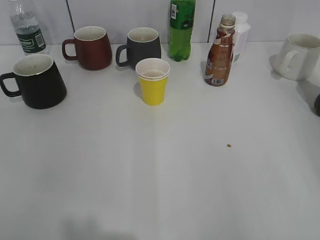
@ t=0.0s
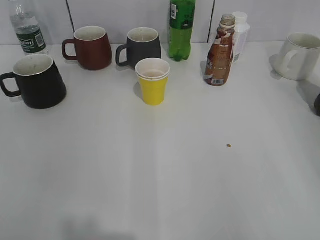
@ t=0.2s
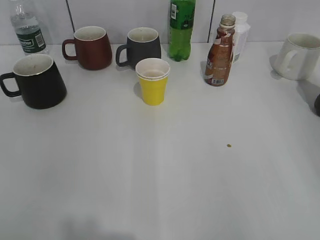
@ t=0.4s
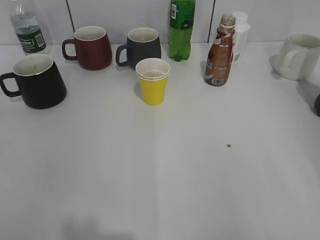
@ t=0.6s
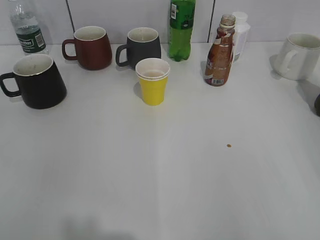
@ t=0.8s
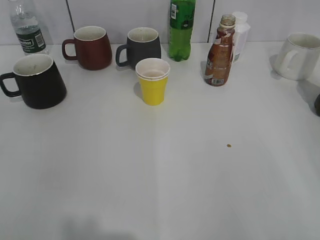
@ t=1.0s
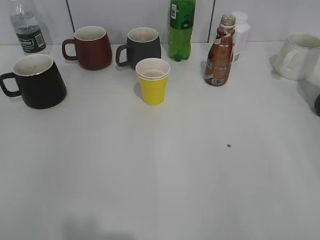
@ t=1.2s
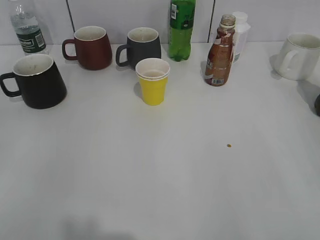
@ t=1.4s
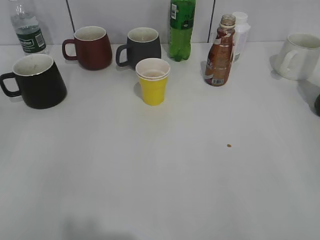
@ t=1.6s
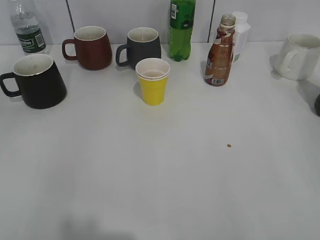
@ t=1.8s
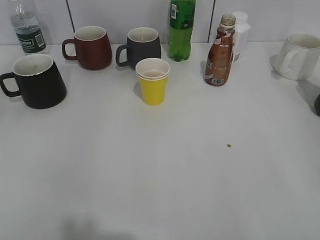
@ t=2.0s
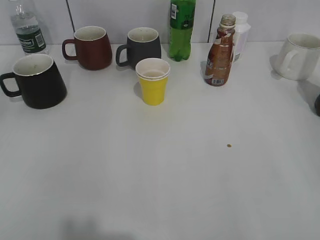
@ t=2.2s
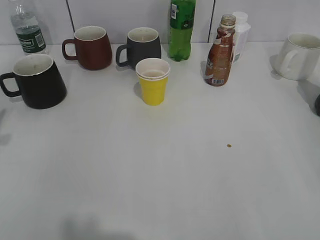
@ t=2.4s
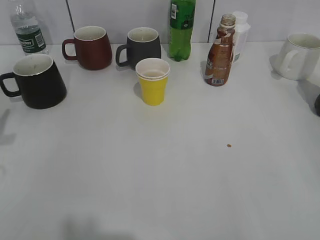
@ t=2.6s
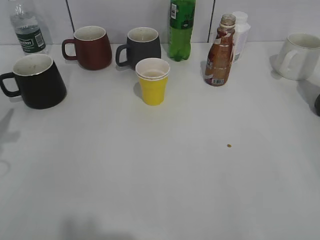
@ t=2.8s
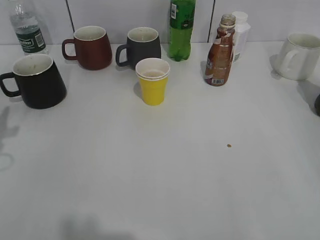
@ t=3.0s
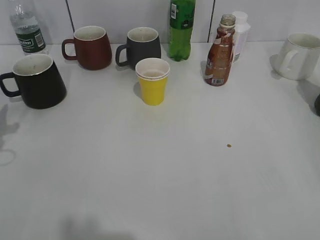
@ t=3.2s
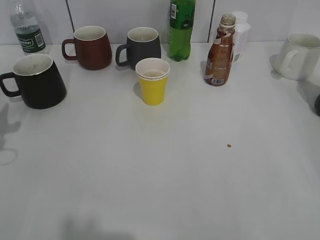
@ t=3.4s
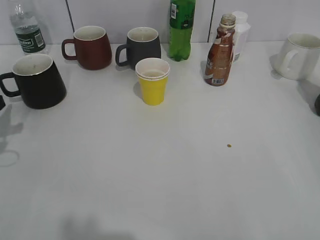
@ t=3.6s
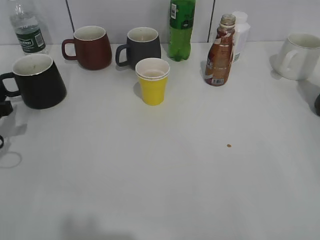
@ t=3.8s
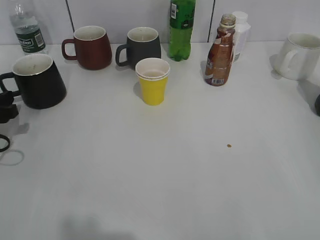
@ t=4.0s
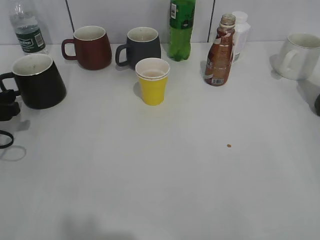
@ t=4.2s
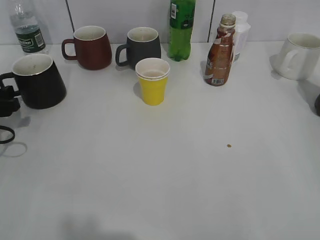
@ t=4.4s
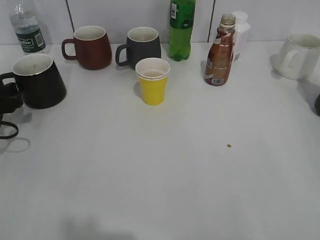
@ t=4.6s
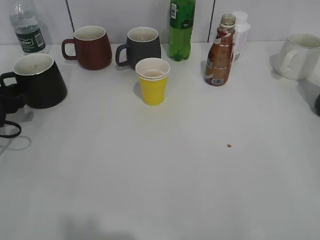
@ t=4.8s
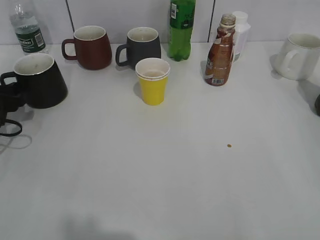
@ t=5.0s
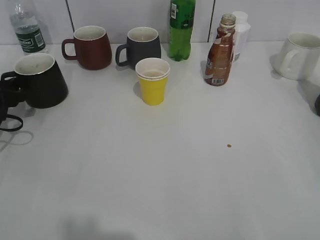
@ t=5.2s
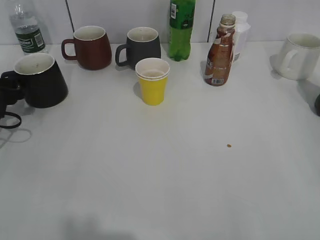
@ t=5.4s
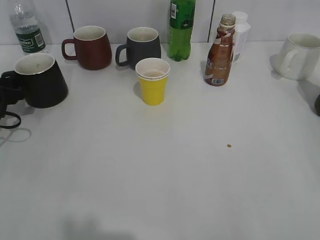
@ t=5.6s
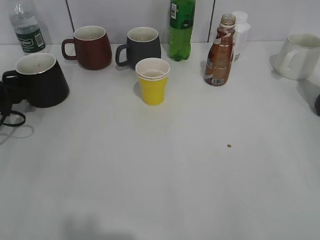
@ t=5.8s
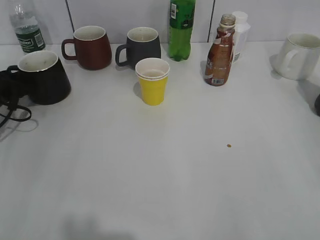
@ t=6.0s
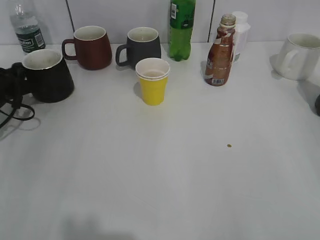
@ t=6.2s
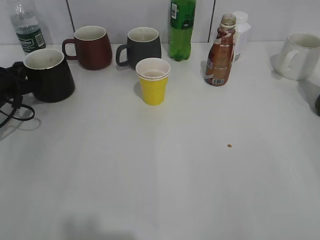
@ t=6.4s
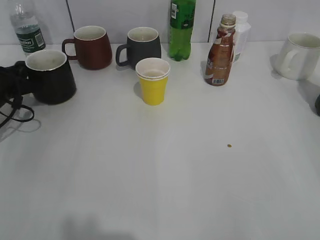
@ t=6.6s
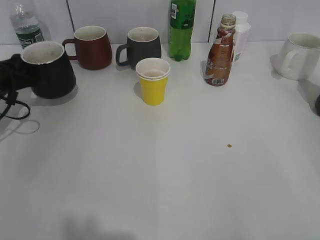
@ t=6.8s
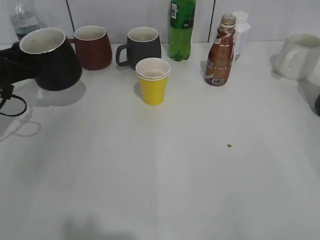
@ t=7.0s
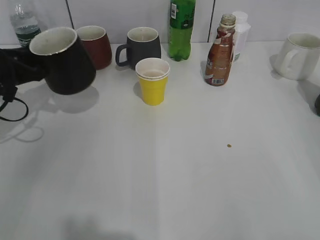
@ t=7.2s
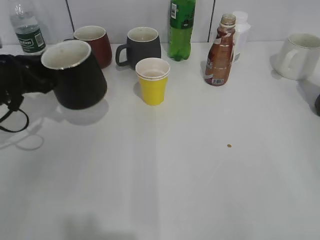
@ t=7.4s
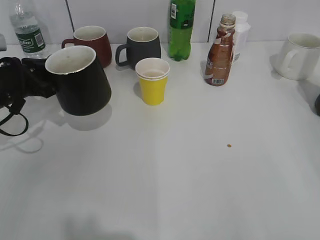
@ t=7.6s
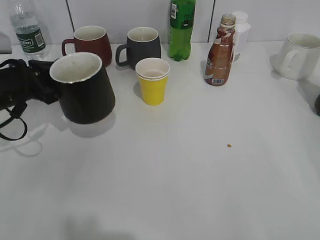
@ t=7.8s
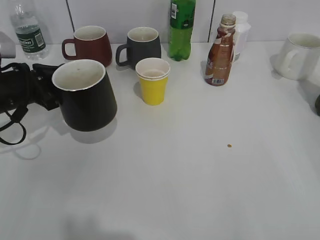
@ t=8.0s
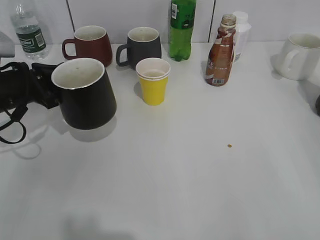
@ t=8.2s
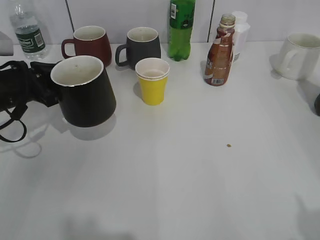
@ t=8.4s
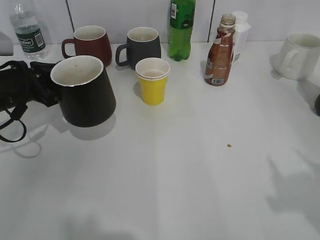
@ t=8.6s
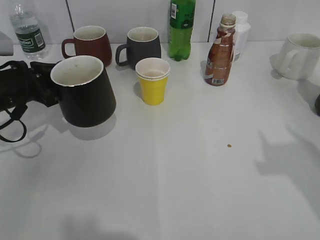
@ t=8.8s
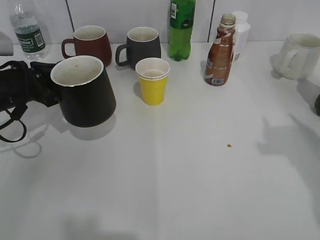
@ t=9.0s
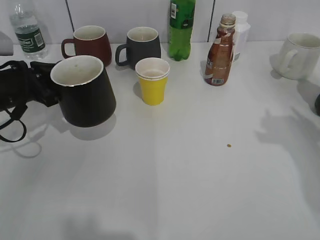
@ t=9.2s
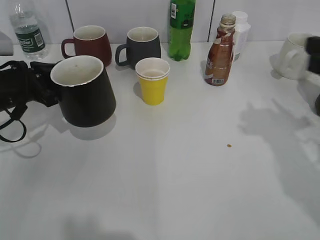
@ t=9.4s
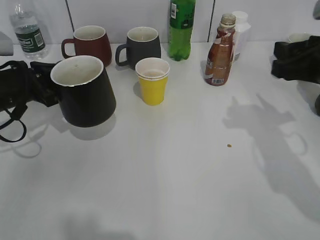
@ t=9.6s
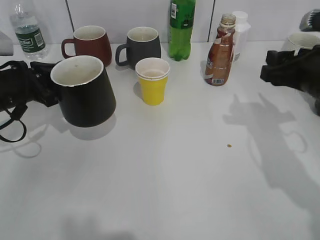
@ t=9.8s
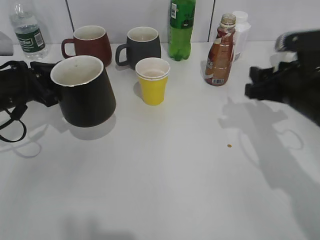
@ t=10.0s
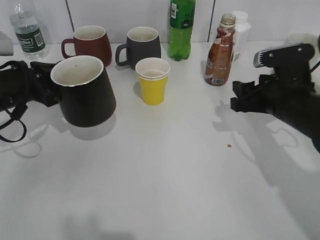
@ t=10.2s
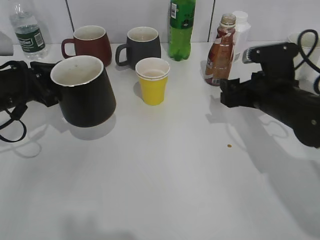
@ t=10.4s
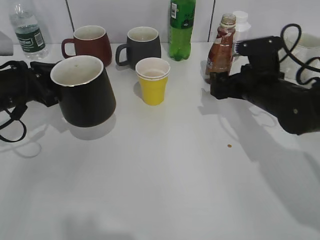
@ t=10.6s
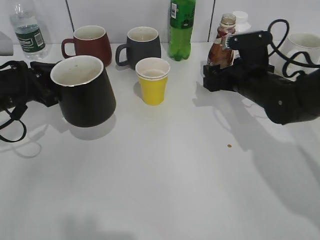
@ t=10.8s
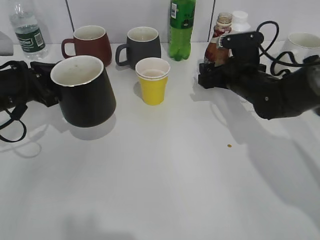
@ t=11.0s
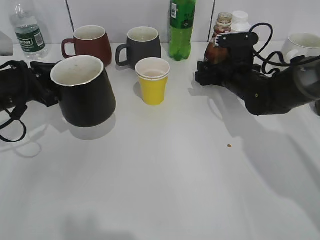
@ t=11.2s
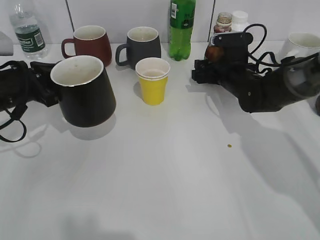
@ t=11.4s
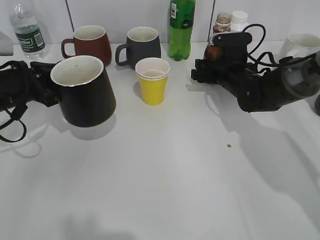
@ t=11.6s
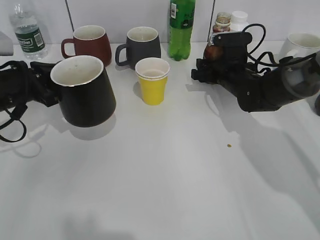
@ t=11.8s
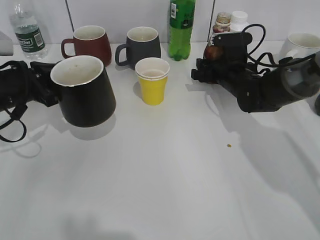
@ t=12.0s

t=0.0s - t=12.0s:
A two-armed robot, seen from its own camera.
Step, t=1.2s - t=6.6s: Grasp the black cup with left gripper.
Step, t=6.8s - t=8.2s: Lift the black cup with left gripper.
Step, t=8.4s - t=11.8s: Grasp the bottle with coffee with right gripper.
t=3.0s - t=4.4s: The left gripper shifts approximately 10 cm downward and forward.
t=4.4s - t=6.0s: The left gripper goes approximately 5 cm forward.
t=6.0s - t=7.6s: The left gripper travels to the right by about 5 cm, and closes its fingers.
t=7.6s - t=9.0s: The right gripper moves forward, roughly 15 cm.
t=9.0s - t=10.4s: The right gripper is displaced downward, forward and to the left by about 25 cm, and opens up.
t=10.4s - t=12.0s: The right gripper moves forward, some 10 cm, and closes its fingers.

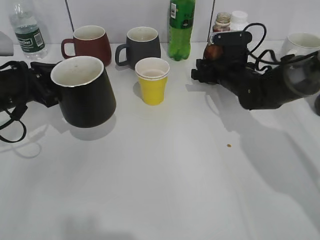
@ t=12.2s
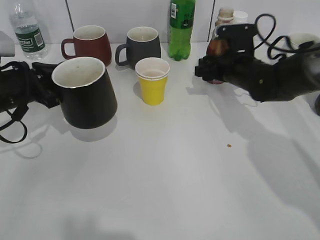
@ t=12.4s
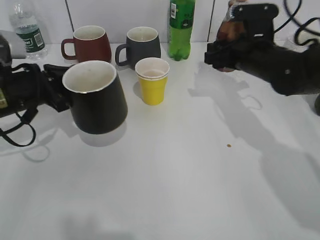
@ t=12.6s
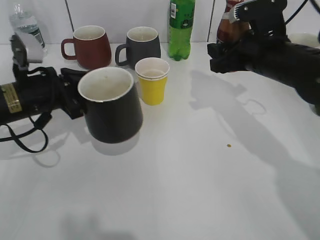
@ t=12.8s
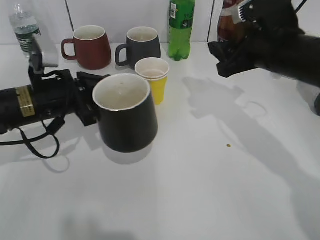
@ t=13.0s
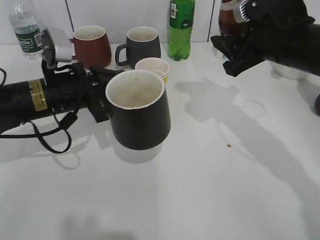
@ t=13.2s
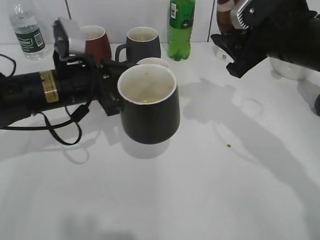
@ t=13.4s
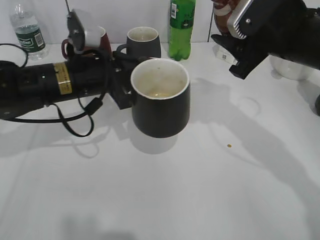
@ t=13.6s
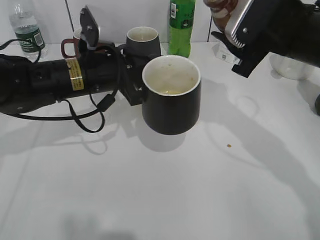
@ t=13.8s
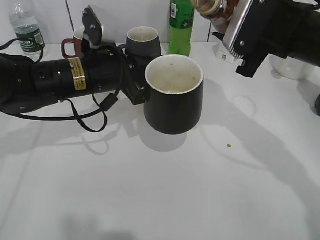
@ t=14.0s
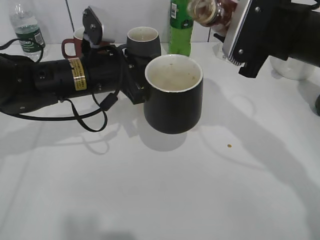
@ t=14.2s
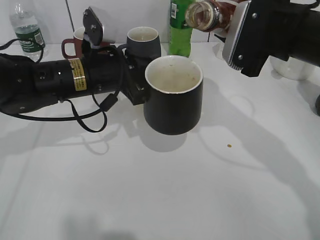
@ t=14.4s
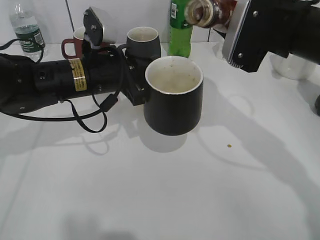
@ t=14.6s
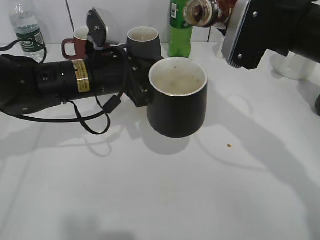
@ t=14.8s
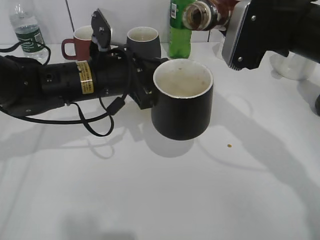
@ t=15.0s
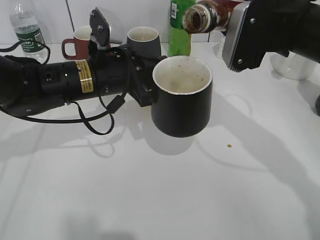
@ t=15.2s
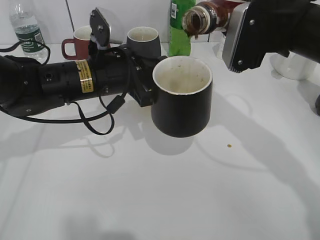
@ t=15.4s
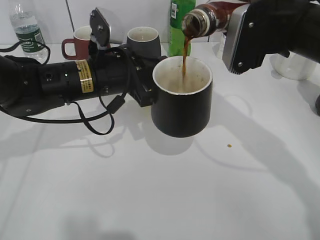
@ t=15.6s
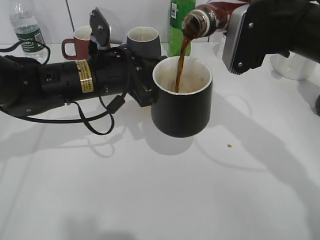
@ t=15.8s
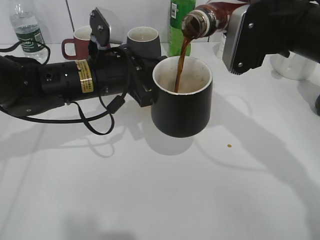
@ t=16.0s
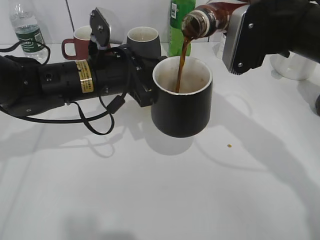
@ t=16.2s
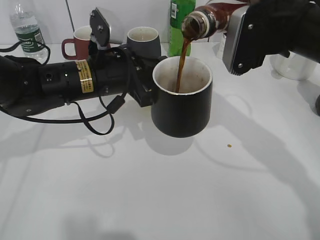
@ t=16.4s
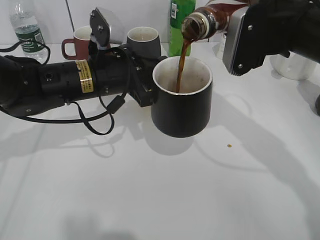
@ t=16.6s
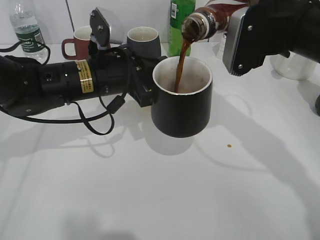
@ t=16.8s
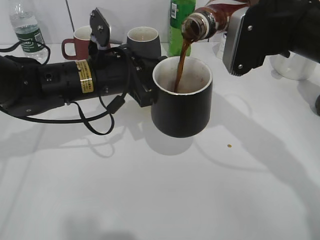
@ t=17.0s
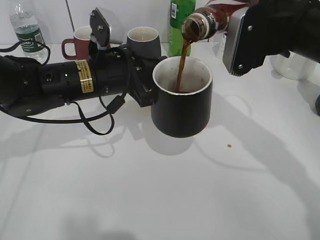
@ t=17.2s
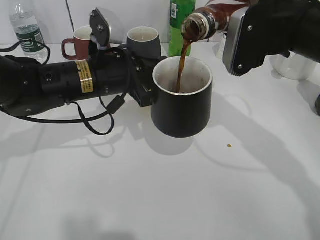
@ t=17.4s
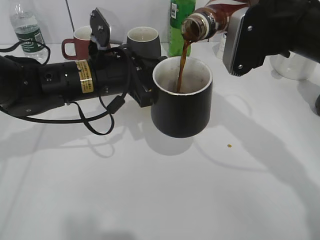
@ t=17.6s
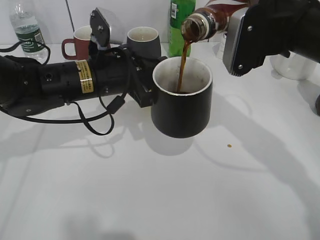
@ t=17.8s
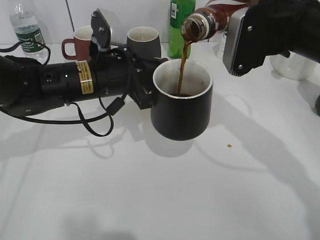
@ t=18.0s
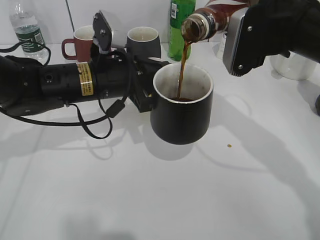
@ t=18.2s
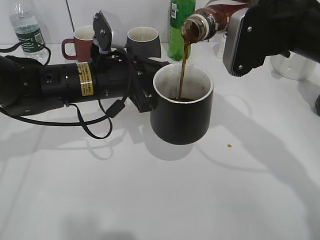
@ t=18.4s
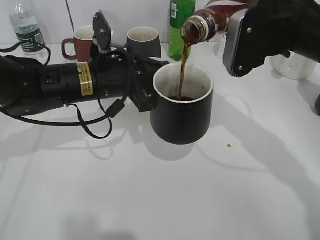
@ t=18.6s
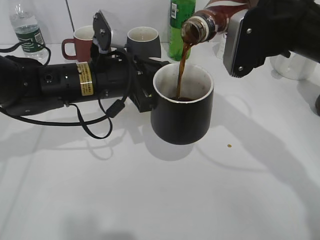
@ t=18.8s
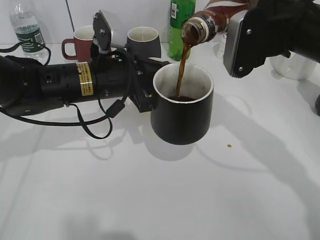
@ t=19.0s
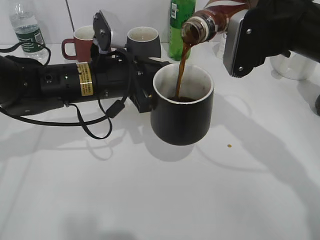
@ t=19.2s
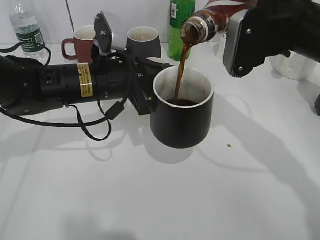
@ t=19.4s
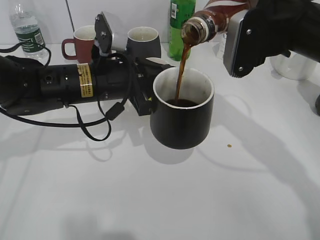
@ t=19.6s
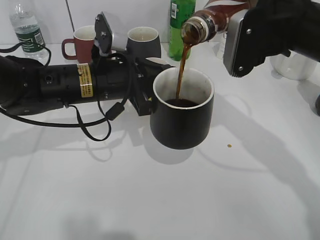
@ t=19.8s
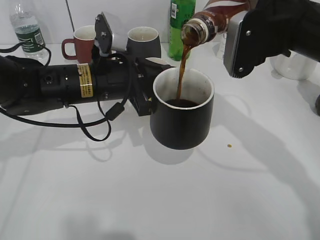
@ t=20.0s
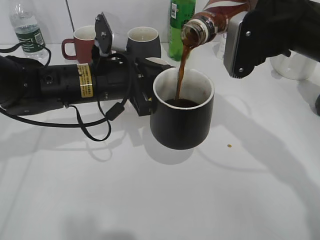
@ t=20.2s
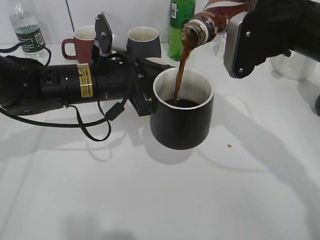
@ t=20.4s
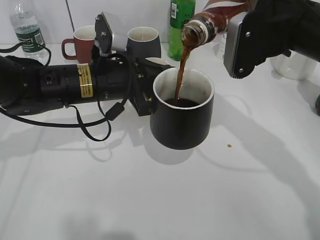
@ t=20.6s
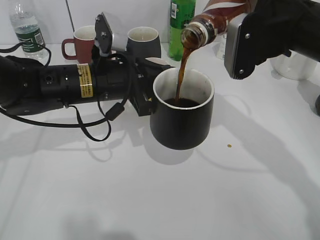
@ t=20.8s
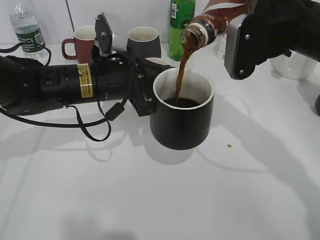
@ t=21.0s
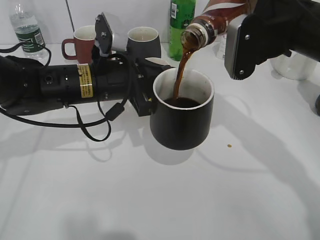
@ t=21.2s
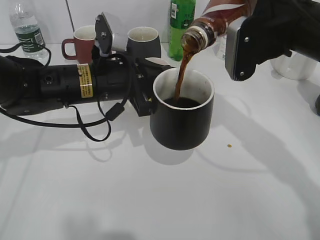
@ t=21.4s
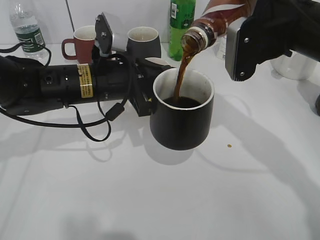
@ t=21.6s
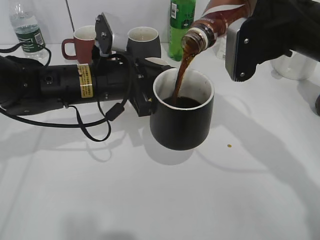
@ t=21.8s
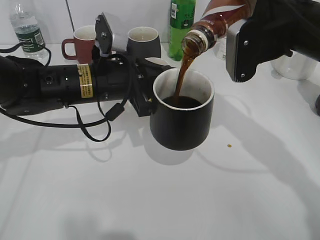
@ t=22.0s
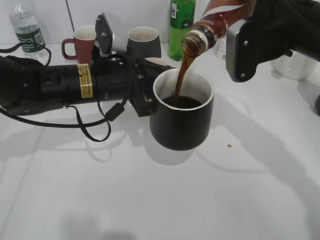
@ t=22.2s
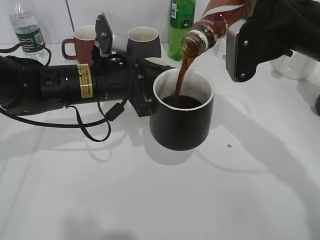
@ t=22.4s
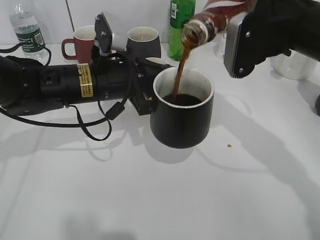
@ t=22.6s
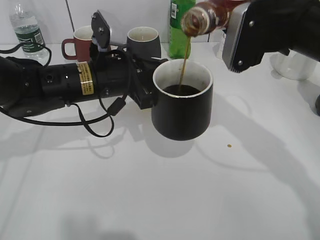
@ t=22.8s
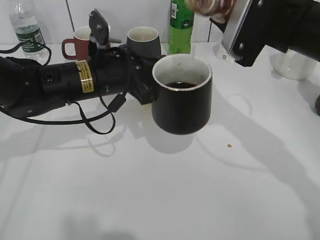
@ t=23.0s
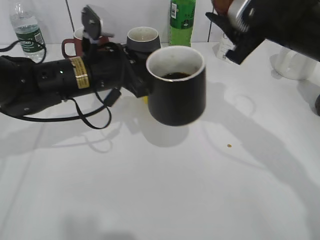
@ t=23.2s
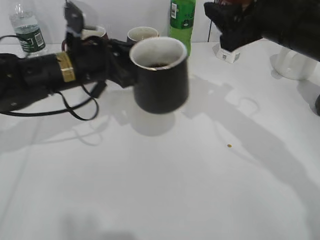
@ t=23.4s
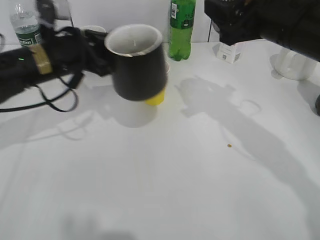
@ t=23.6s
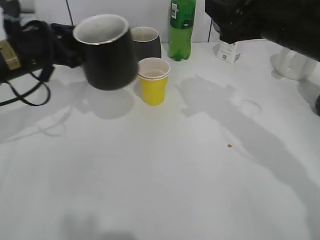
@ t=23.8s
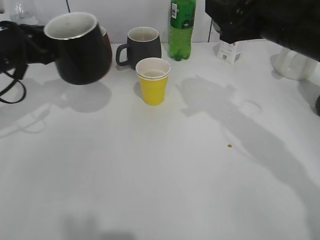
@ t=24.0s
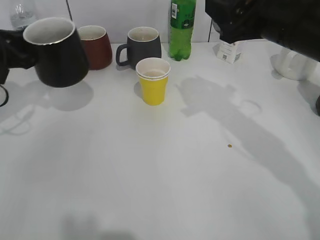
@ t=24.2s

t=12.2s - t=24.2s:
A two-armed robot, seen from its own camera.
Step, t=12.2s - t=22.8s: Pour the coffee from bottle to cup with right gripper.
t=12.2s - t=13.8s: The right gripper heads upward and backward, covering approximately 20 cm; the left gripper is displaced to the right by approximately 15 cm.
t=15.2s - t=16.6s: Both grippers stay about where they are.
t=16.6s - t=18.2s: Both grippers stay put.
t=18.2s - t=19.8s: The two grippers keep their place.
t=19.8s - t=21.2s: The two grippers keep their place.
t=21.2s - t=22.6s: There are only small adjustments of the grippers.
t=22.6s - t=24.2s: The left gripper moves to the left, some 20 cm.
